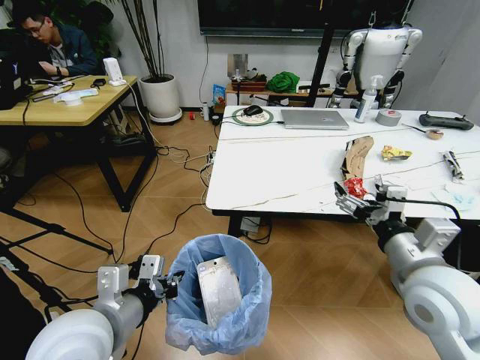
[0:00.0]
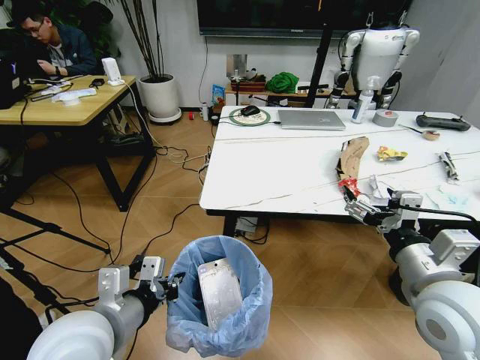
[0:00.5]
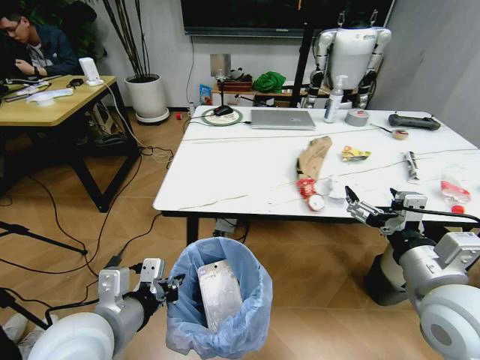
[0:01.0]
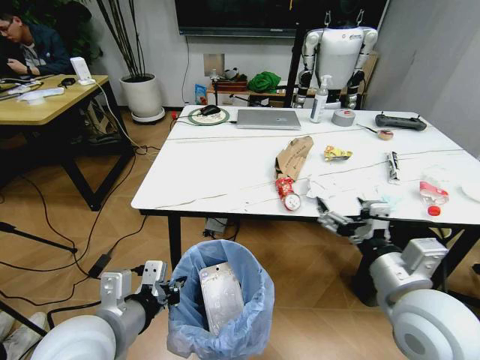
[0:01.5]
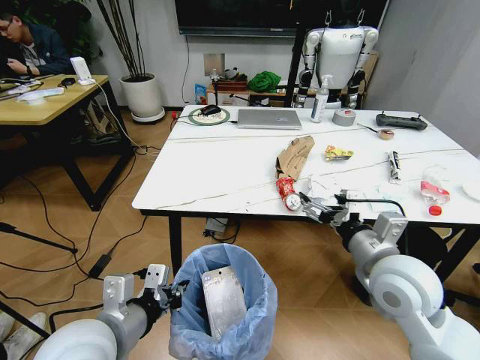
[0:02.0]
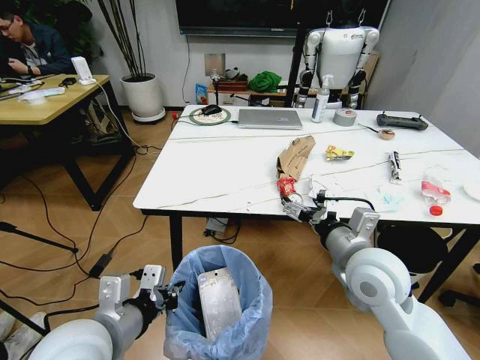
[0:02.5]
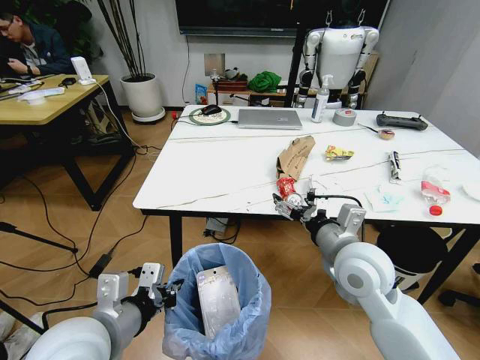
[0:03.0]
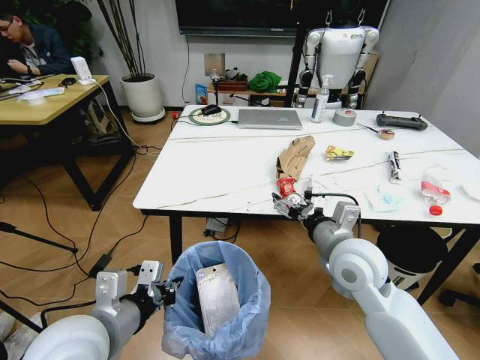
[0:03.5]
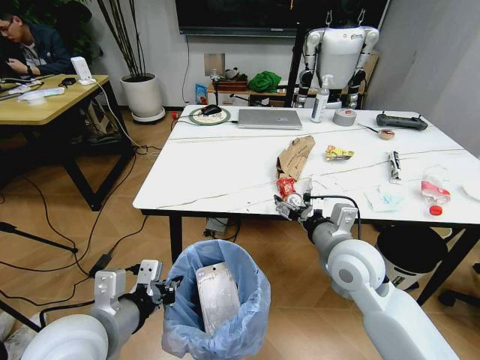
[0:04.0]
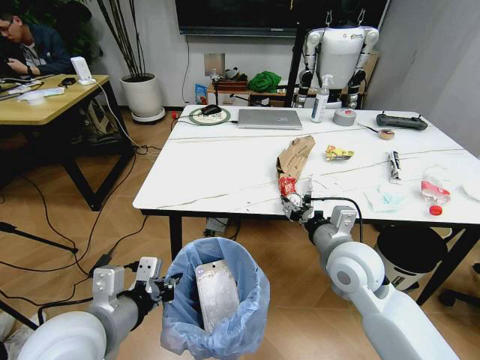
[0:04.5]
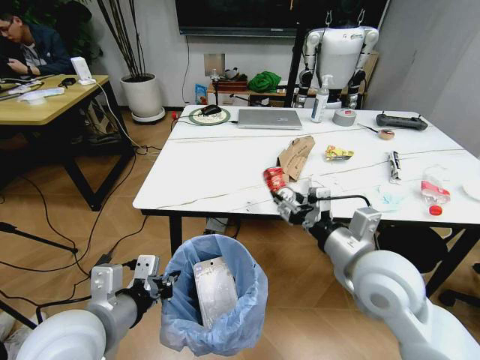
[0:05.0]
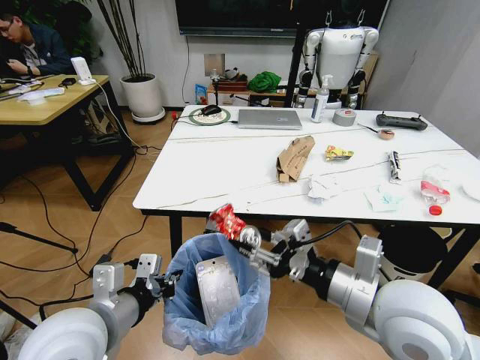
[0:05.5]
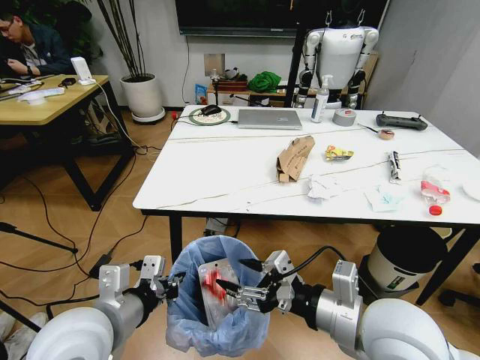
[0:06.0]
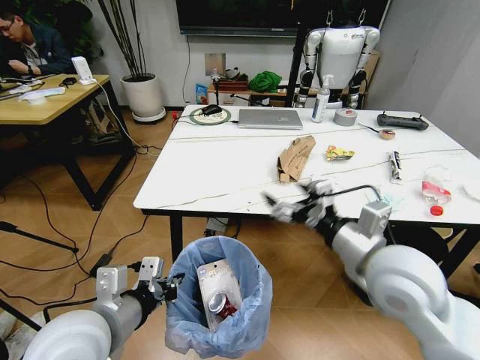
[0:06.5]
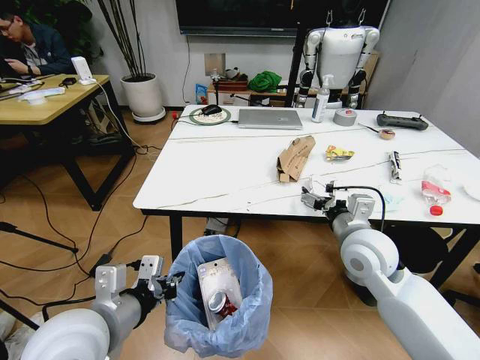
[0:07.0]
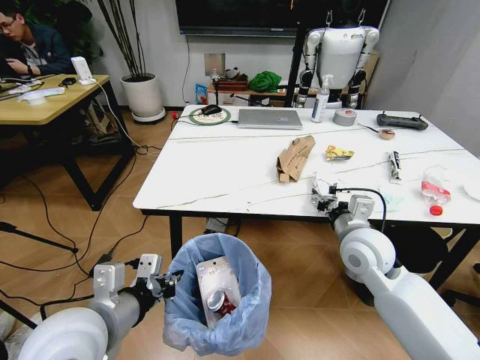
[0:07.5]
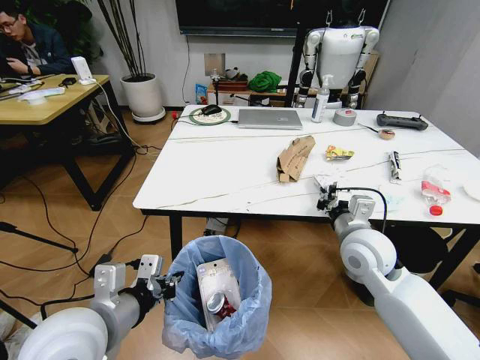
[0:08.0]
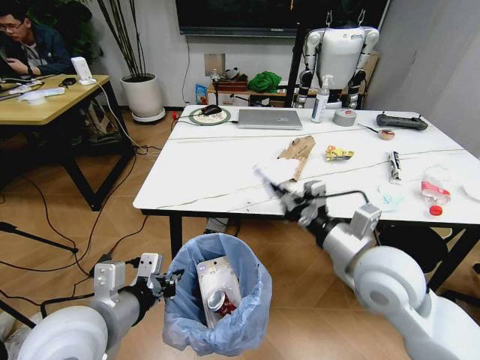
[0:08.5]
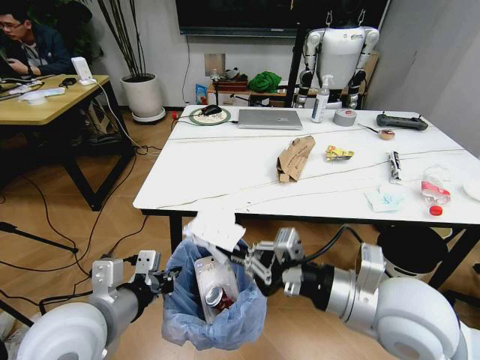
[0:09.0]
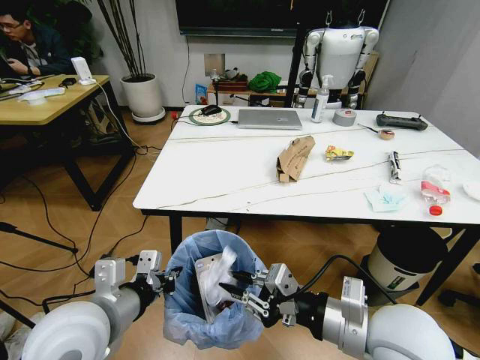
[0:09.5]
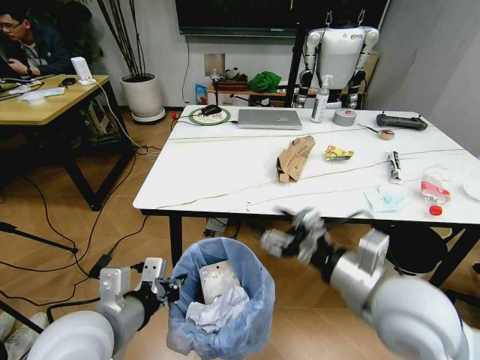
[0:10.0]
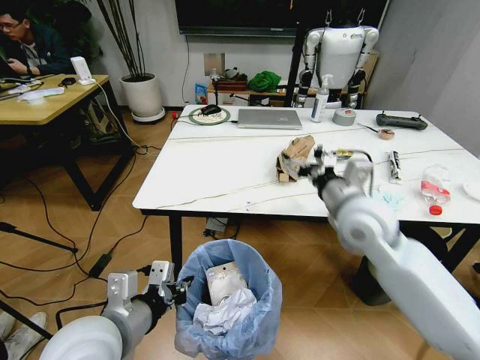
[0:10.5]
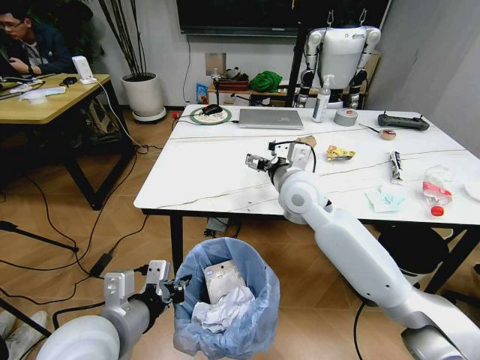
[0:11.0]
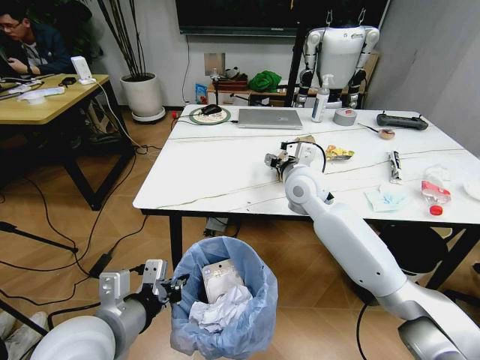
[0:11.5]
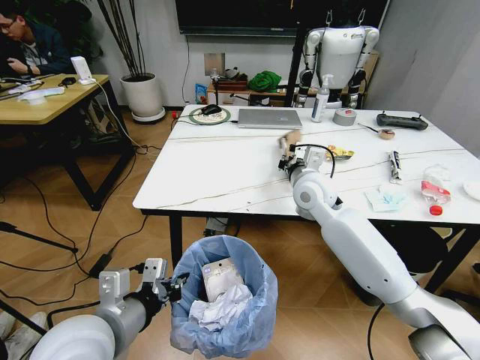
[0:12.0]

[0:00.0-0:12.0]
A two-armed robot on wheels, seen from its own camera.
Task of the whole recording: Pick up the trash bin and place the trash from the table into it.
2.0 to 4.0 s: The right gripper travels forward by roughly 5 cm.
4.0 to 6.0 s: The right gripper moves backward, some 15 cm.
6.0 to 8.0 s: The right gripper shifts roughly 15 cm forward, and closes.
8.0 to 10.0 s: The right gripper travels backward and upward by roughly 15 cm, and opens up.
10.0 to 12.0 s: The right gripper heads forward, covering about 25 cm, and closes.

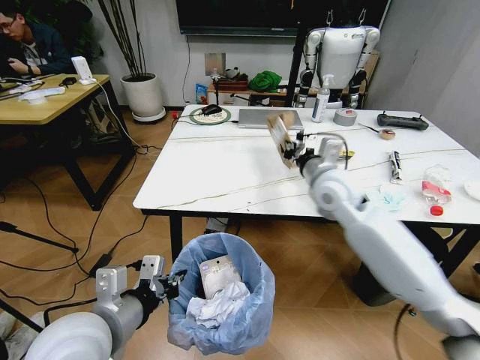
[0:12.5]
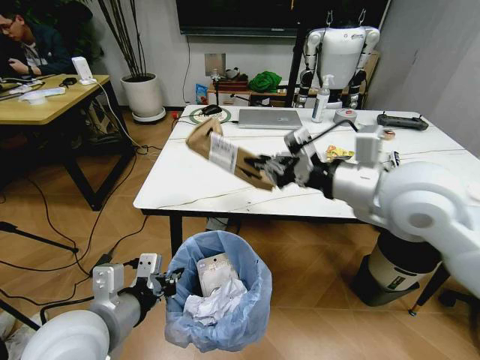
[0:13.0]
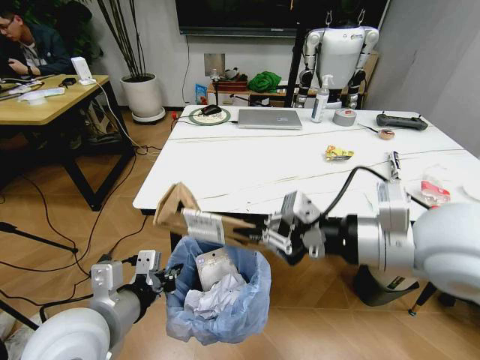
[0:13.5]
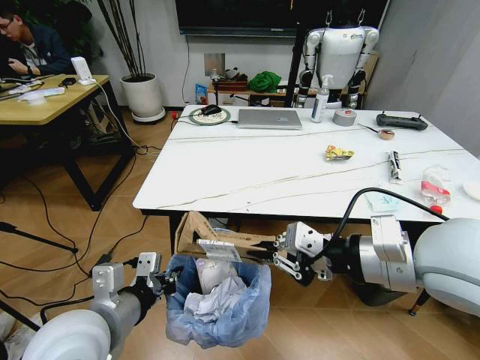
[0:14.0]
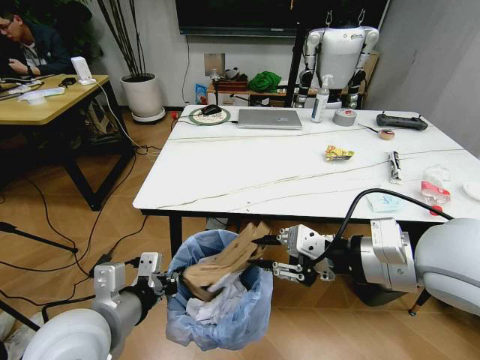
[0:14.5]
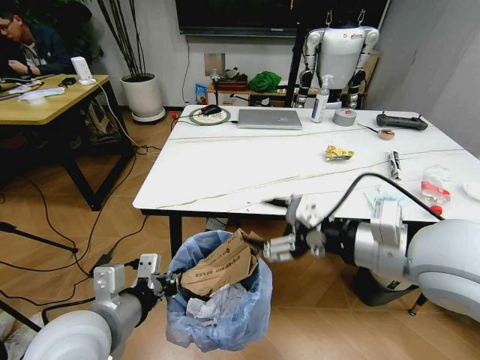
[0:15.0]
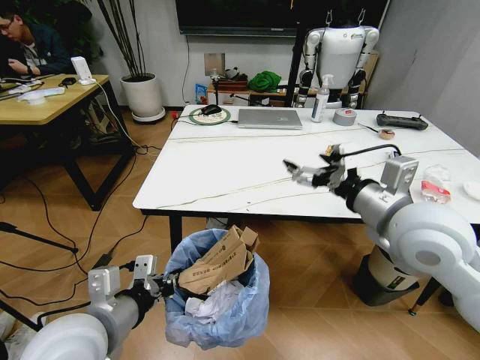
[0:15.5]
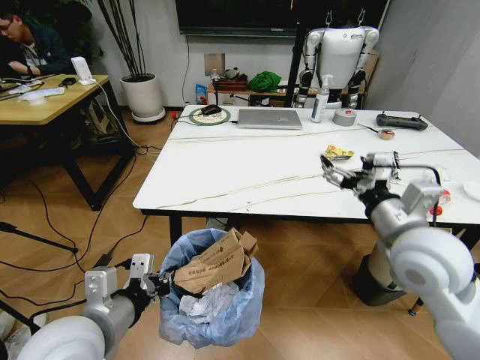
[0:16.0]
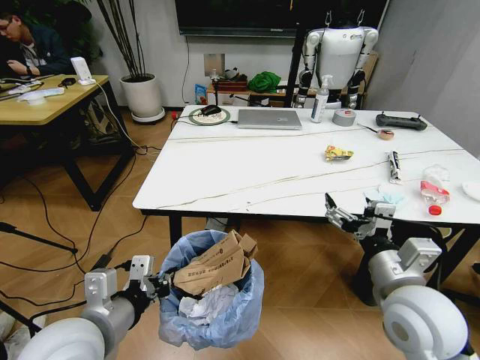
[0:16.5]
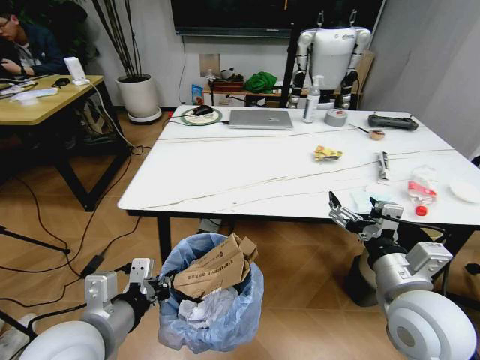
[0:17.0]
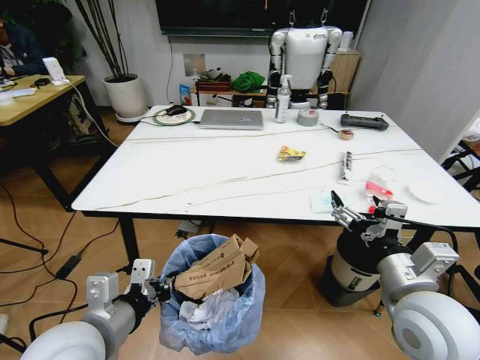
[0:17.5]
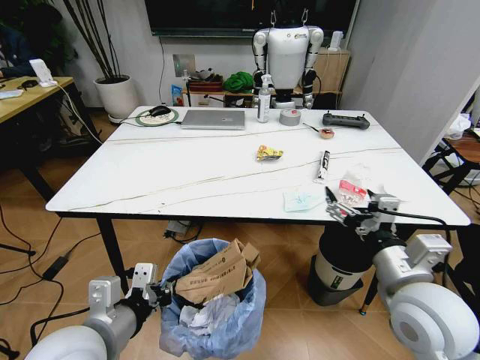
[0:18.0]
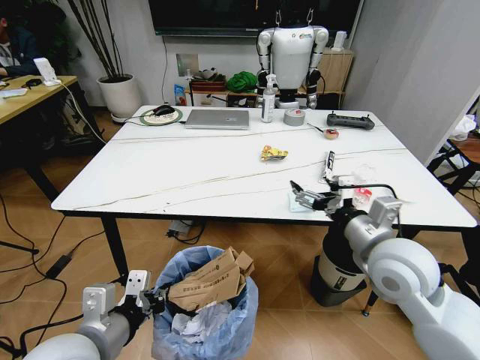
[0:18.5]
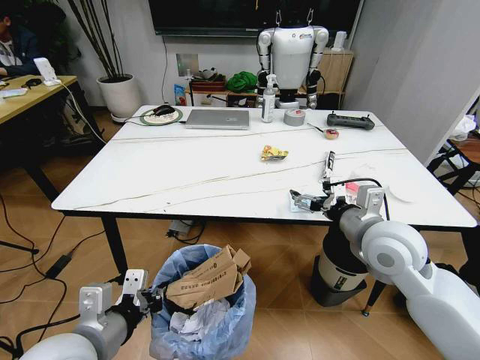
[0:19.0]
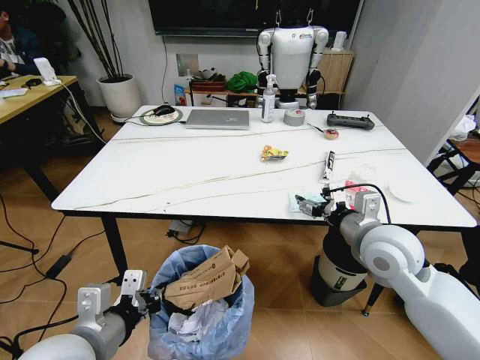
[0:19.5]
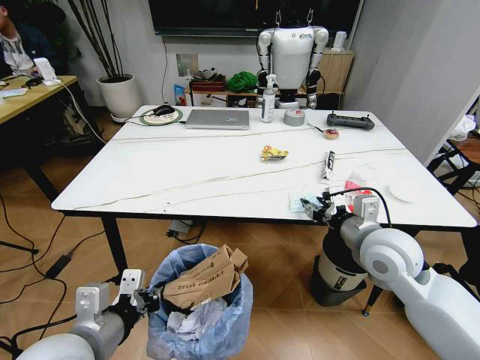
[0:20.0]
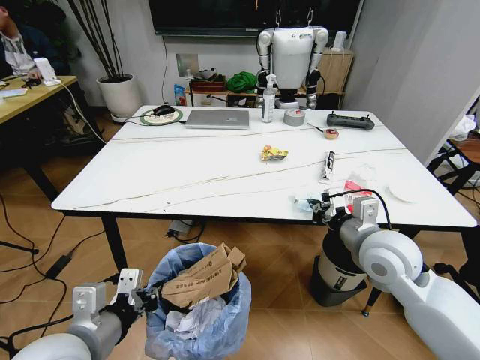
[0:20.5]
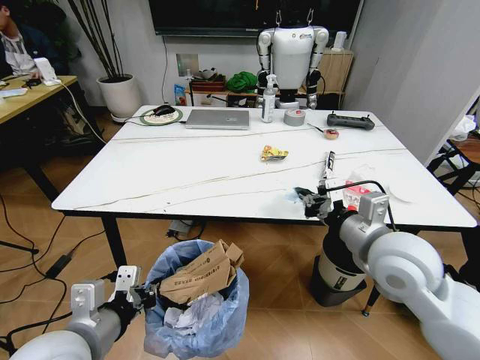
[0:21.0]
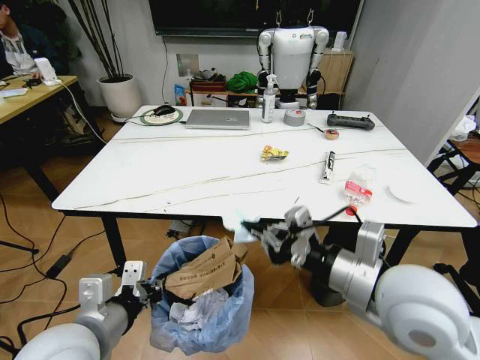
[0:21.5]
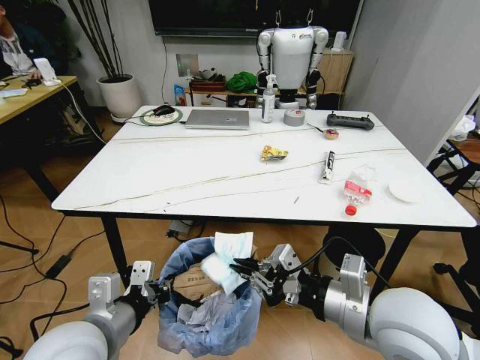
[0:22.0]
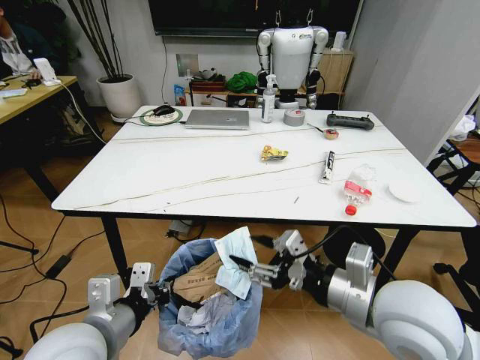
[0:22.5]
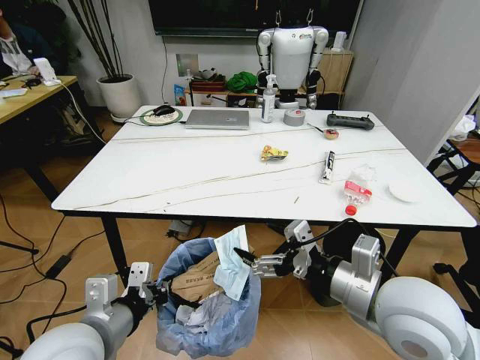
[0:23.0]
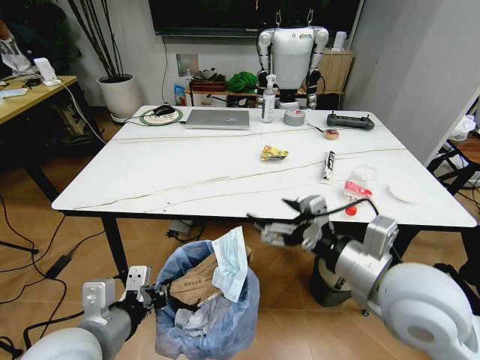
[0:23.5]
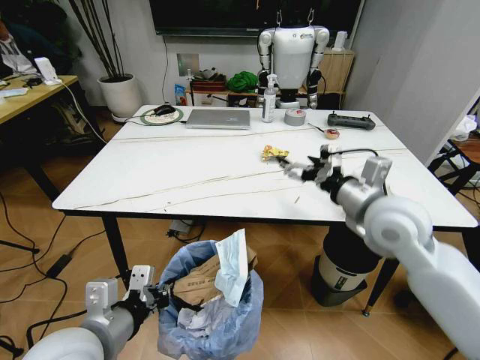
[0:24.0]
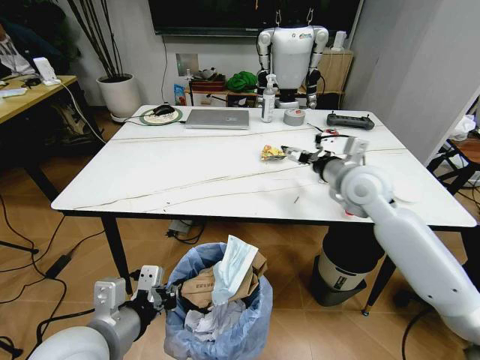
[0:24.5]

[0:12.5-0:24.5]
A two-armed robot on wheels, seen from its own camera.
Task of the whole recording: Pick up the trash bin and place the trash from the table into it.
12.5 to 14.5 s: The right gripper is displaced backward and upward by approximately 20 cm.
14.5 to 16.5 s: The right gripper heads downward, covering some 15 cm, and opens its fingers.
16.5 to 18.5 s: The right gripper travels forward by some 5 cm.
18.5 to 20.5 s: The right gripper closes.
20.5 to 22.5 s: The right gripper moves backward, approximately 10 cm, and opens its fingers.
22.5 to 24.5 s: The right gripper is displaced forward by about 25 cm, and opens.

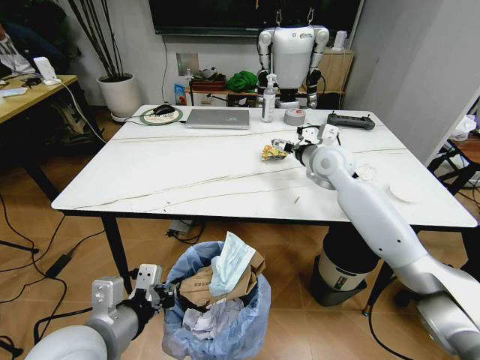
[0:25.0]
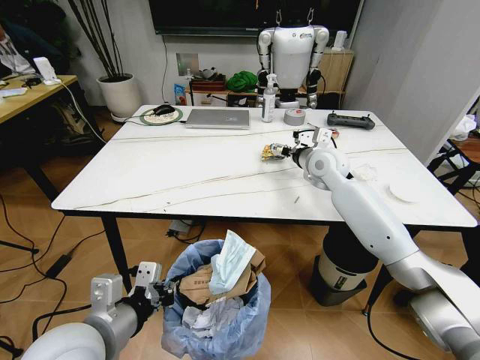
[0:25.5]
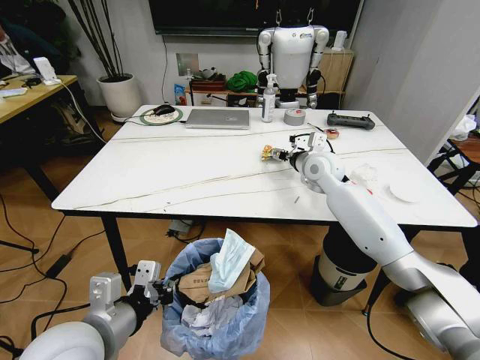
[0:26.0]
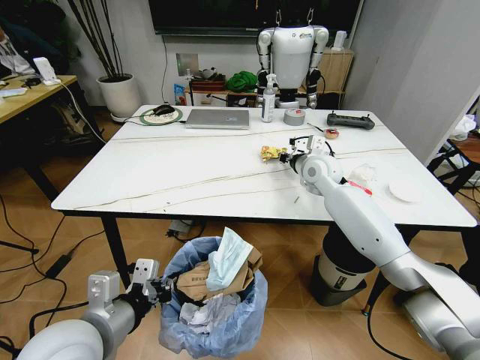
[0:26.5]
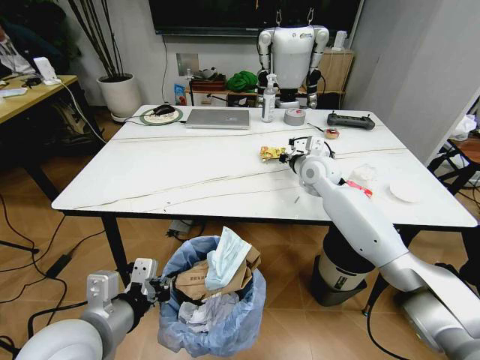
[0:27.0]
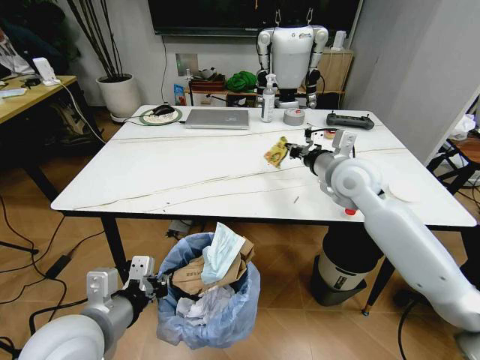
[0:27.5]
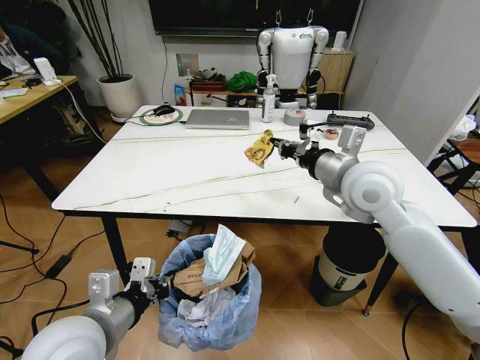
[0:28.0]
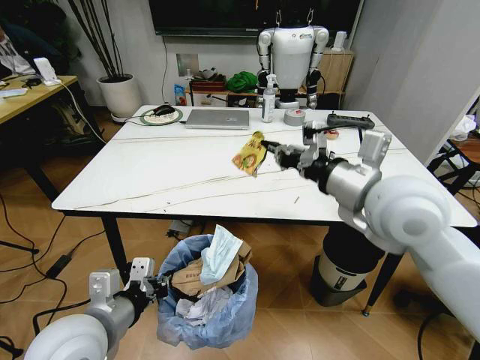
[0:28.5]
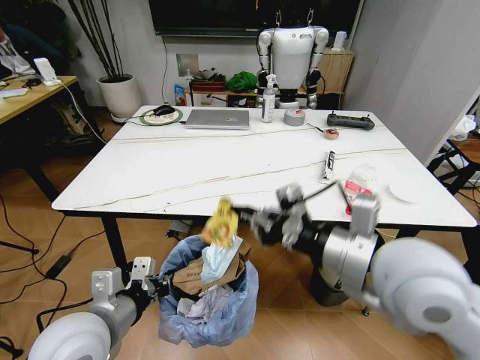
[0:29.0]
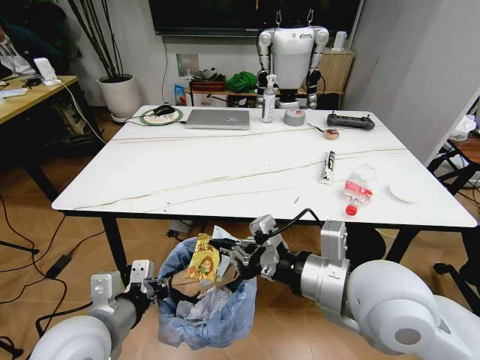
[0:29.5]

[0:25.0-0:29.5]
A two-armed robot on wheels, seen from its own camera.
Task of the whole recording: Pick up the trash bin and place the trash from the table into it.
25.0 to 27.0 s: The right gripper shifts by some 5 cm, and closes up.
27.0 to 29.5 s: The right gripper shifts approximately 35 cm backward.
